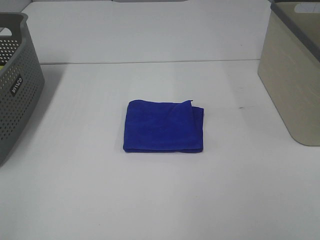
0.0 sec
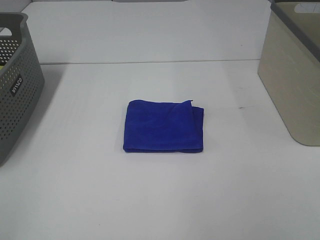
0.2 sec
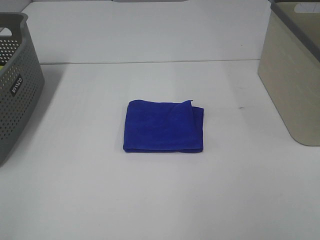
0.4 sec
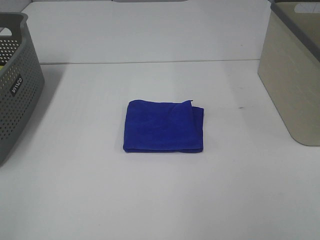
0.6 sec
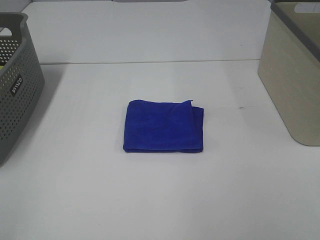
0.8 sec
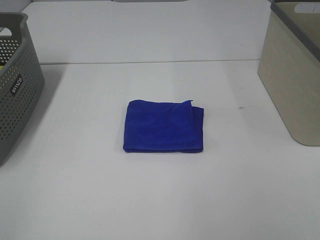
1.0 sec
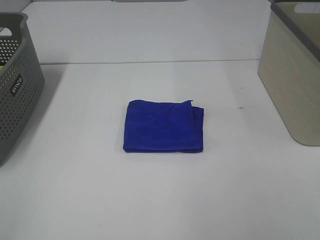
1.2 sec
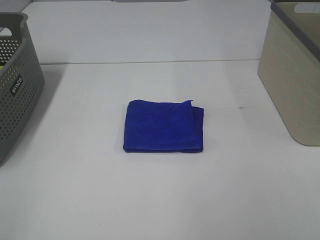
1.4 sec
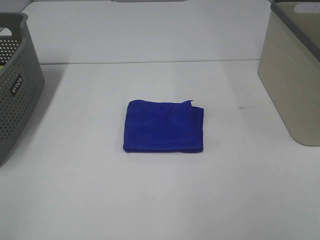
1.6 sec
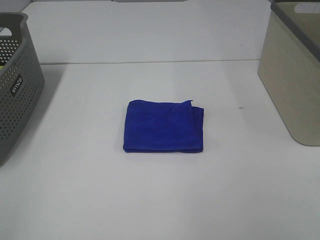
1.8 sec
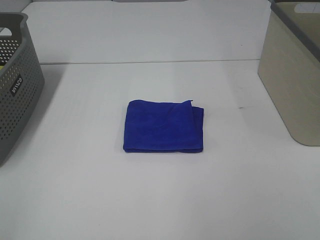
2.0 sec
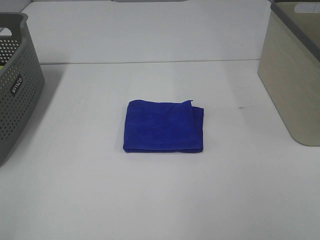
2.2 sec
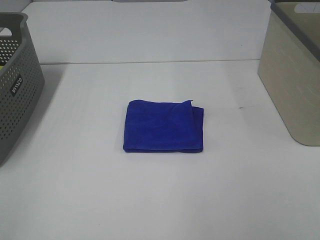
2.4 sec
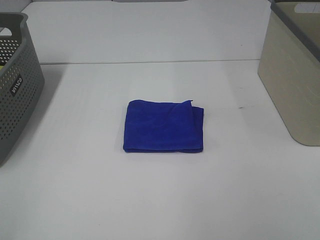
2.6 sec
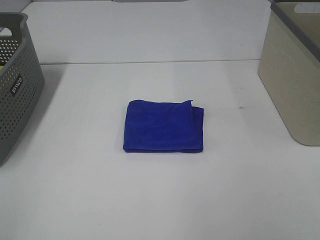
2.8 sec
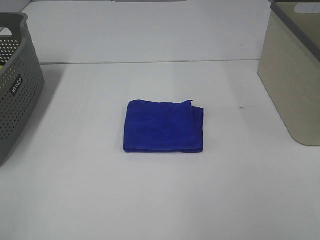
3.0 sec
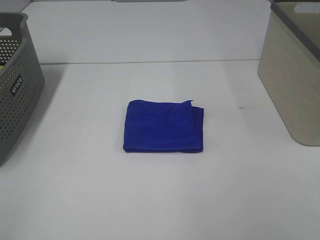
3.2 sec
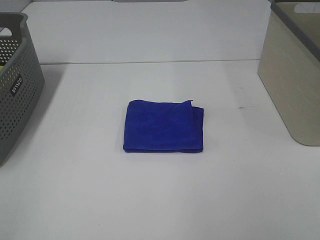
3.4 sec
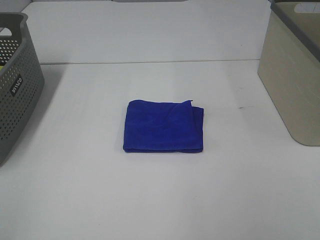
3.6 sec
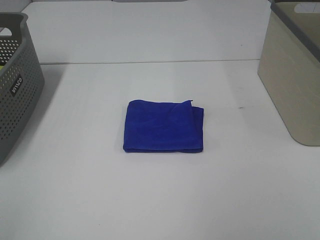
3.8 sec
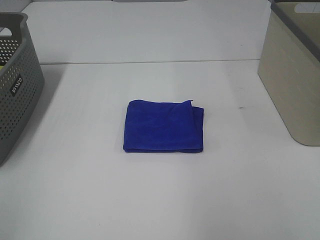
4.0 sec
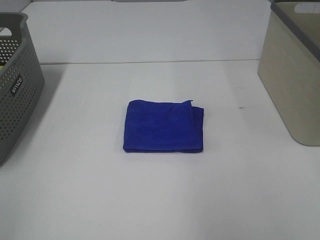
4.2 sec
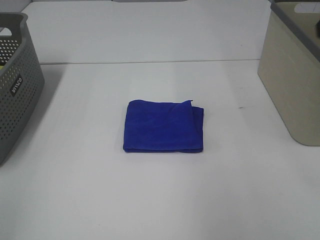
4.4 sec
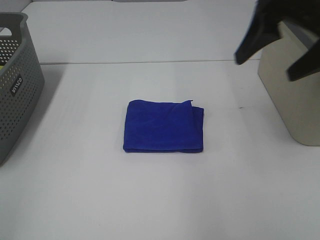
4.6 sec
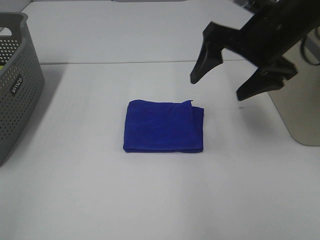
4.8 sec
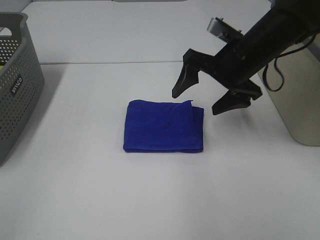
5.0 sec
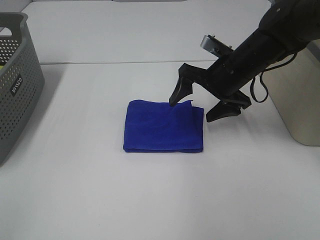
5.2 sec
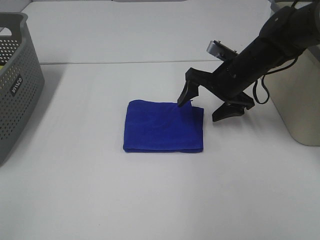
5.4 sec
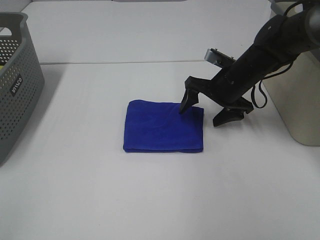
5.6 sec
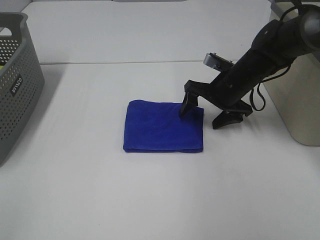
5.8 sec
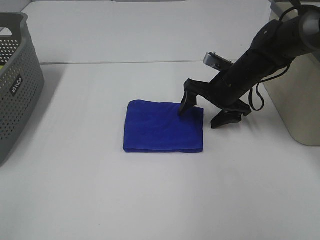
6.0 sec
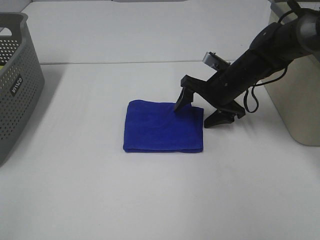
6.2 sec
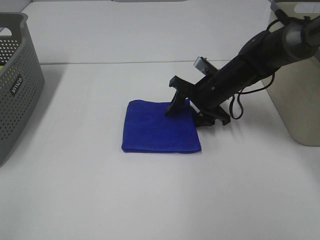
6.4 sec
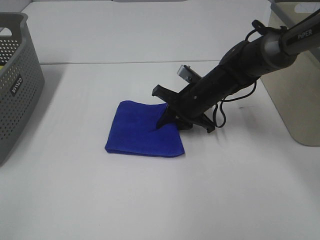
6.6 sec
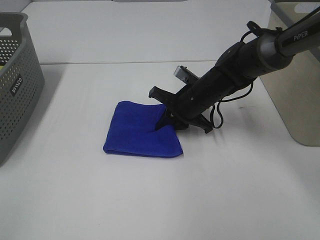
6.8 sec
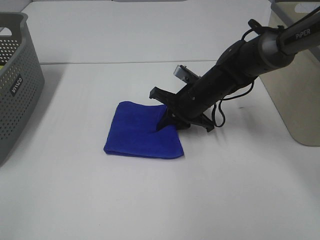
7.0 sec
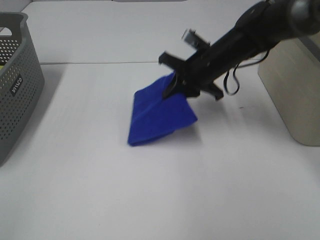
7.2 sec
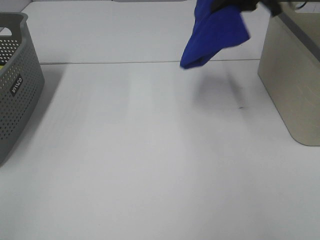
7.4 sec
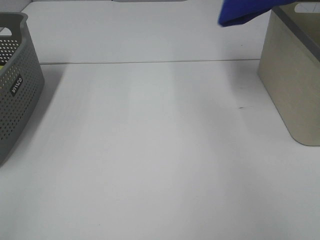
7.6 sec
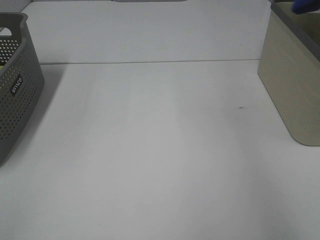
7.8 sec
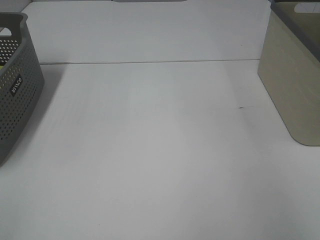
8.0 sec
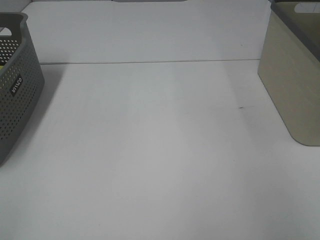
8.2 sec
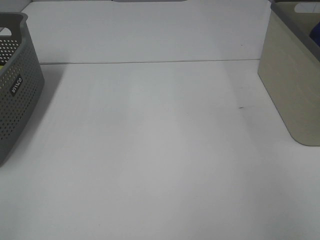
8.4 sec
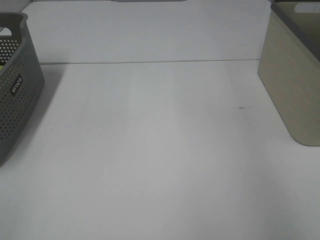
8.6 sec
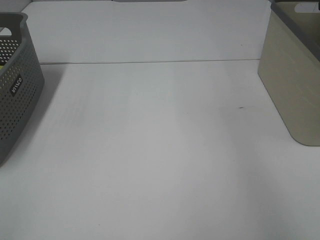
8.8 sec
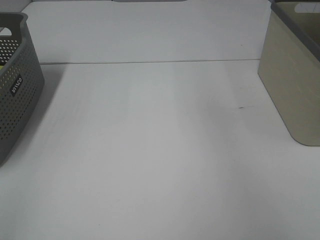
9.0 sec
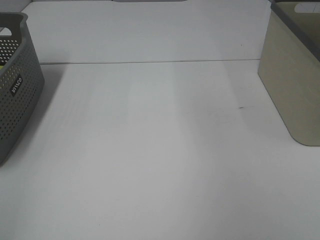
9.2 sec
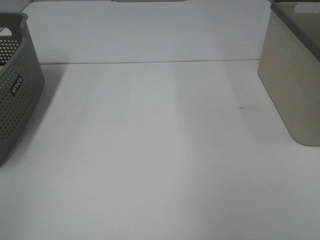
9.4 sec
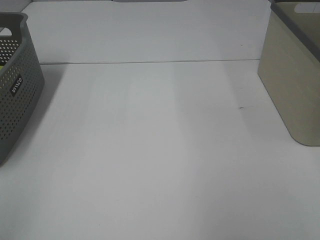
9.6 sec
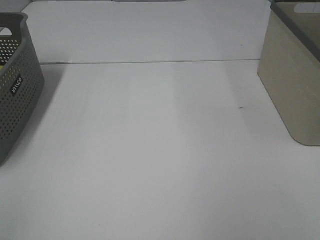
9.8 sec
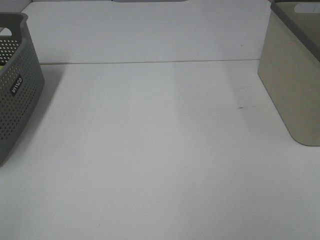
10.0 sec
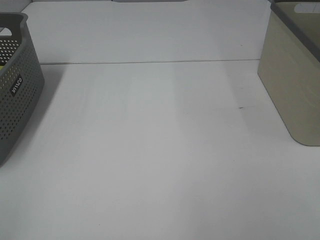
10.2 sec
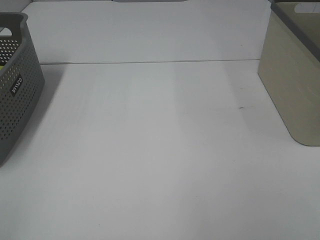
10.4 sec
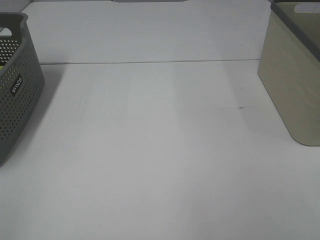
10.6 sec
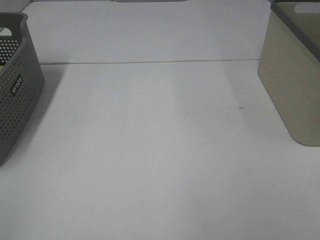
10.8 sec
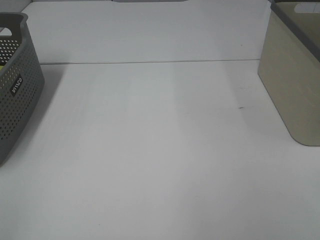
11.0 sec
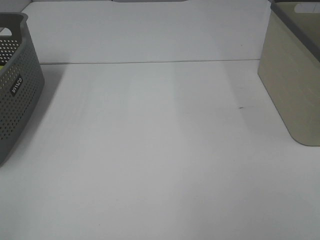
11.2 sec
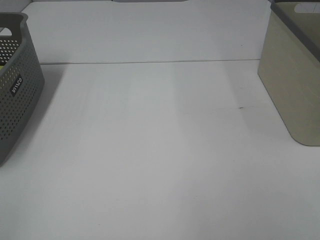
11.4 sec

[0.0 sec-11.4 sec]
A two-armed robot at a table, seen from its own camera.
Step, 0.0 sec to 6.6 sec: Right hand: grab the folded blue towel.
Step, 6.8 sec to 8.6 sec: Right hand: place the blue towel in right basket.
0.0 sec to 2.8 sec: Neither gripper changes place.
4.2 sec to 5.6 sec: The right gripper is displaced downward, forward and to the left by some 40 cm.
5.6 sec to 7.2 sec: The right gripper moves upward, roughly 5 cm, and closes up.
7.2 sec to 8.6 sec: The right gripper travels to the right and upward by some 30 cm, and opens up.

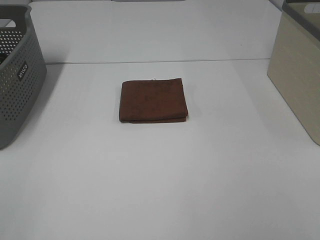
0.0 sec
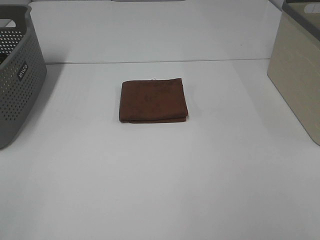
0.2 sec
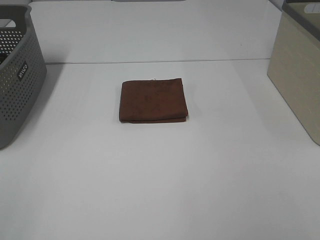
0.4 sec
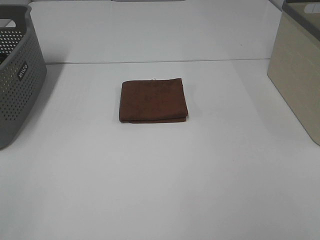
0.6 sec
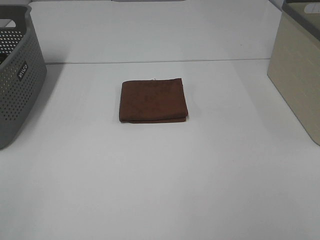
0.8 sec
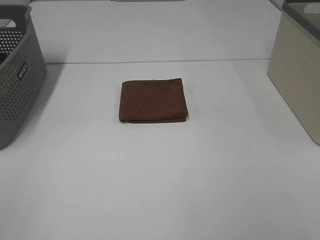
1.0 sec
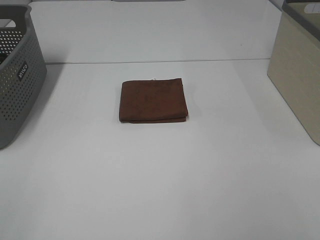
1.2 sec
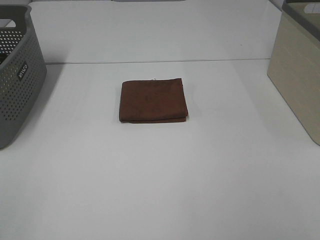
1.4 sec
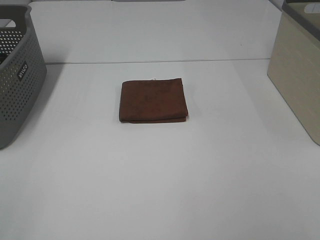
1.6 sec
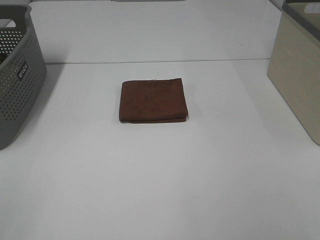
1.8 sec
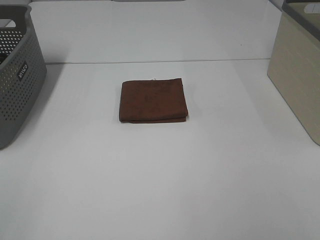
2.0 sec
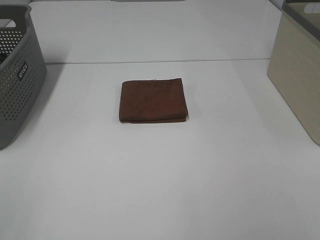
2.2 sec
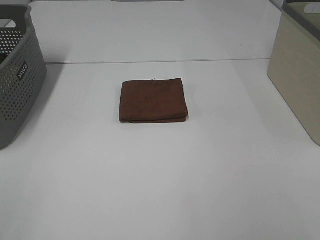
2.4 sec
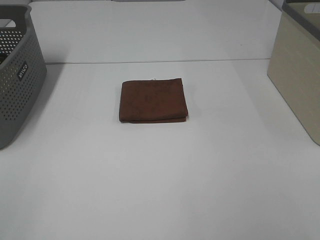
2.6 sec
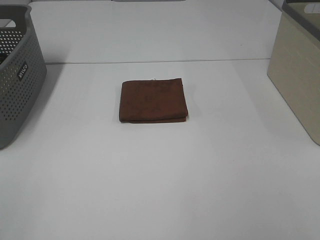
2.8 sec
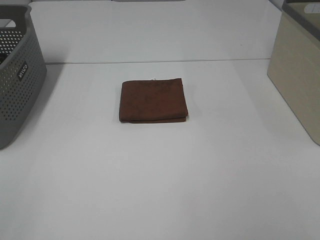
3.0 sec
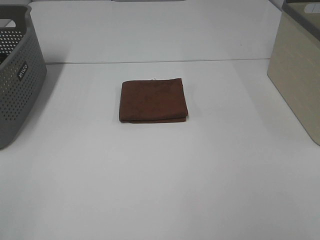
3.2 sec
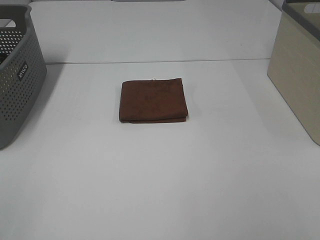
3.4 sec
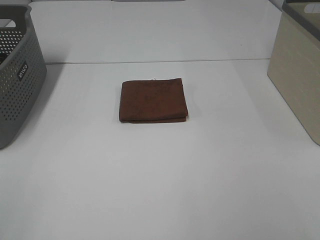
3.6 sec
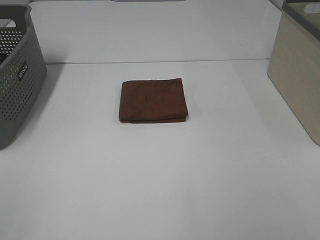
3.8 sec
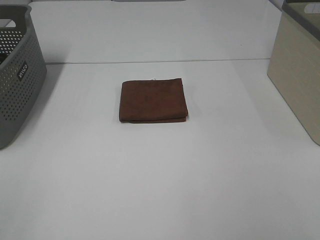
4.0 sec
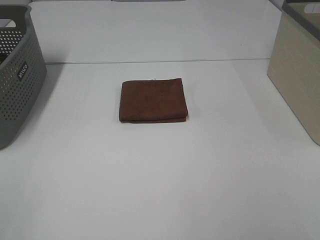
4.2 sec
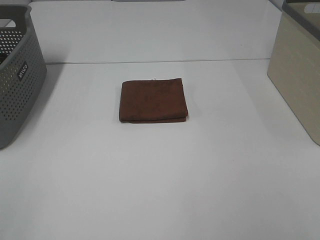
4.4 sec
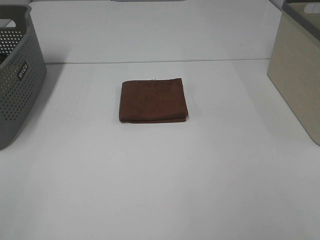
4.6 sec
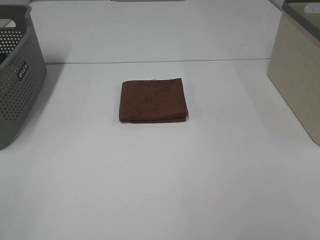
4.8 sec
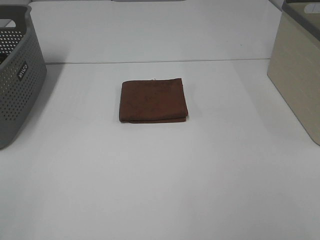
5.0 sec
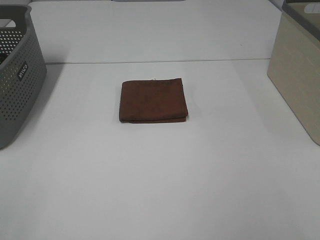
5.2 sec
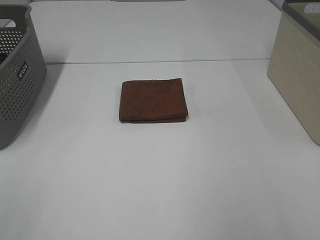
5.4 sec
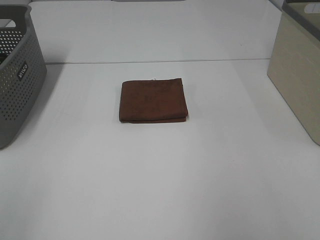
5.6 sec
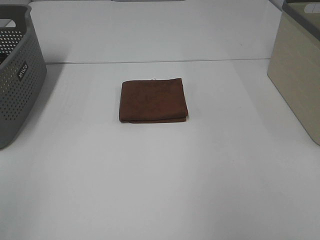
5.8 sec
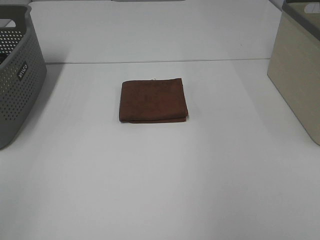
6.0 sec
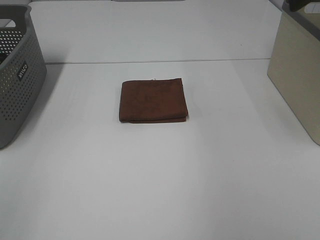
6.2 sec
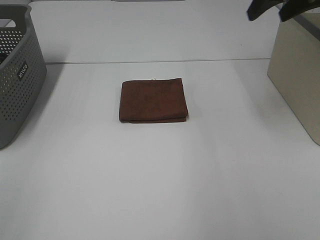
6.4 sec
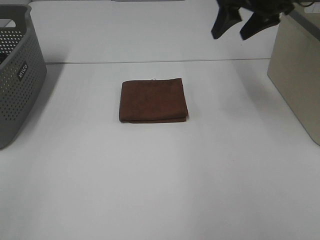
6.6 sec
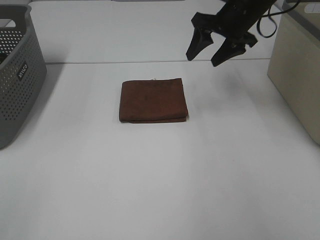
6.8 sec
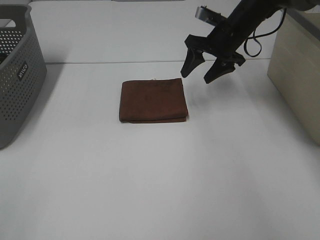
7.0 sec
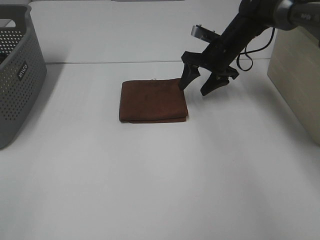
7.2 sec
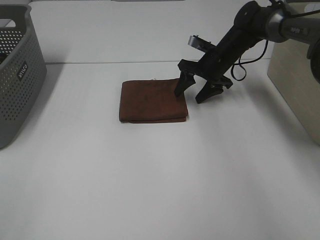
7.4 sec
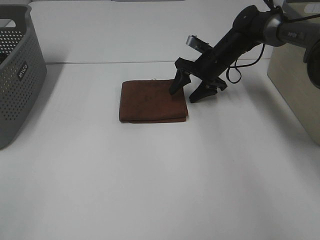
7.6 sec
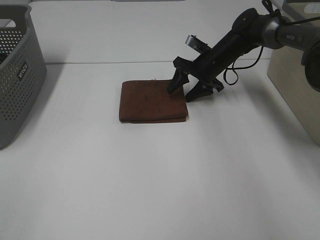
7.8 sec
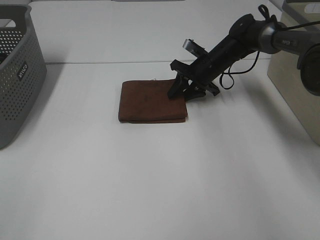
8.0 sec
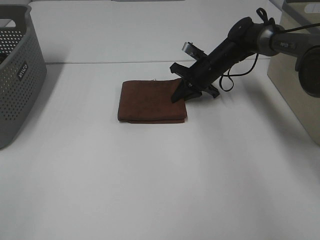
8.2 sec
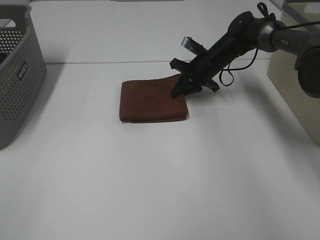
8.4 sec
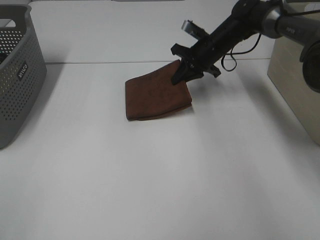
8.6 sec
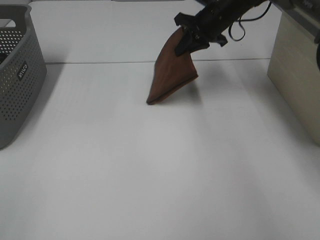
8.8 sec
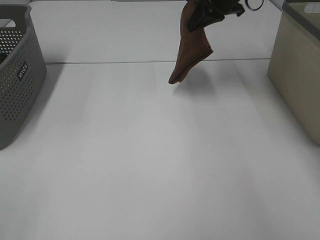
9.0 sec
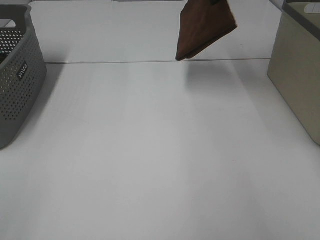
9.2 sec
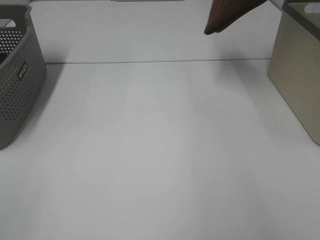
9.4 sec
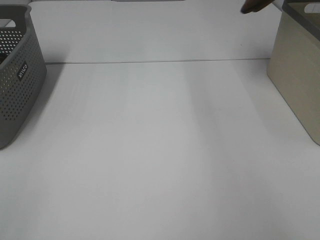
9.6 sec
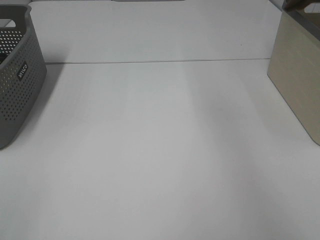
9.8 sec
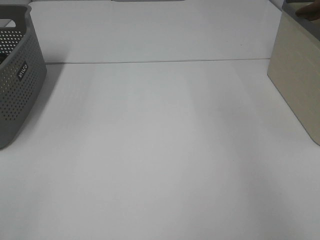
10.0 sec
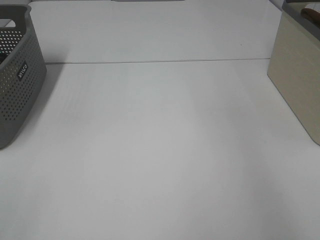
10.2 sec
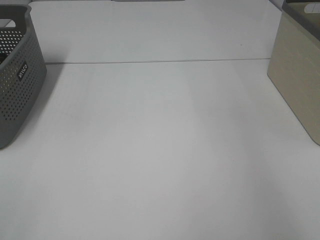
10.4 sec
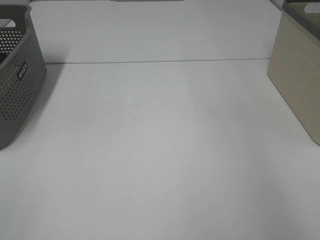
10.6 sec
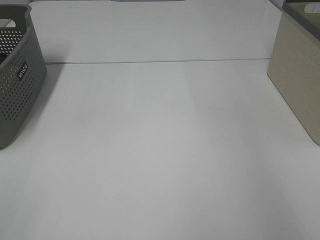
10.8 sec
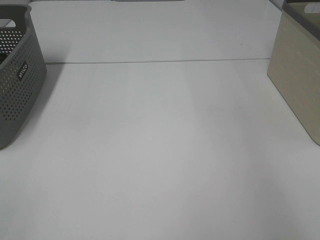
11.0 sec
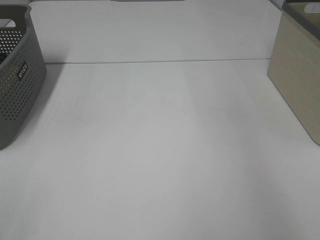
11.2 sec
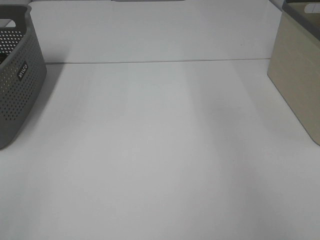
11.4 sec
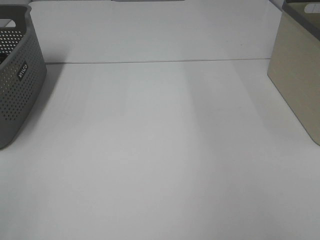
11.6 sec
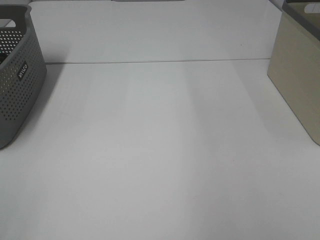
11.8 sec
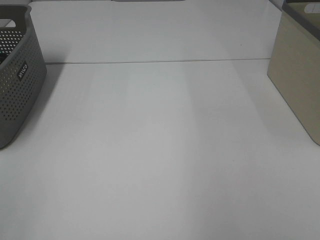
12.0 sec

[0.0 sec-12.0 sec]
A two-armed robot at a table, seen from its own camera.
Step, 0.0 sec to 8.4 sec: Right hand: grab the folded brown towel.
Step, 8.6 sec to 10.8 sec: Right hand: place the brown towel in right basket.
0.0 sec to 4.4 sec: Both grippers stay about where they are.
6.0 sec to 7.6 sec: The right gripper goes some 40 cm downward, forward and to the left.
7.6 sec to 9.0 sec: The right gripper moves upward, about 20 cm, and closes.
9.0 sec to 10.4 sec: The right gripper heads to the right, covering roughly 25 cm.
